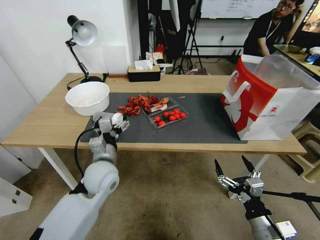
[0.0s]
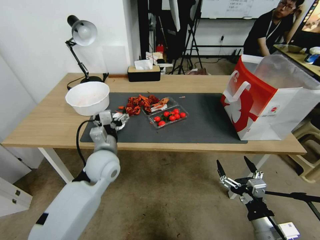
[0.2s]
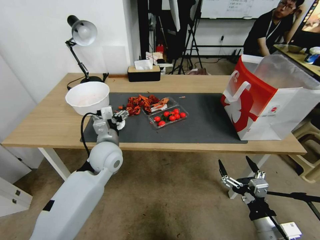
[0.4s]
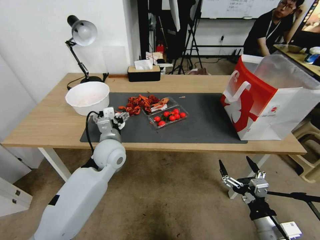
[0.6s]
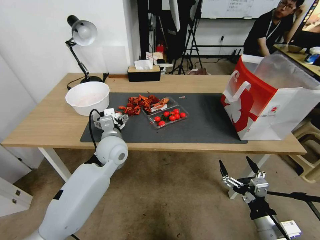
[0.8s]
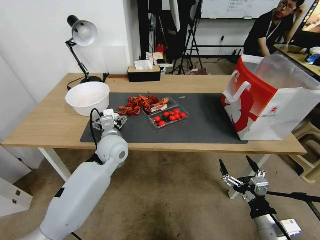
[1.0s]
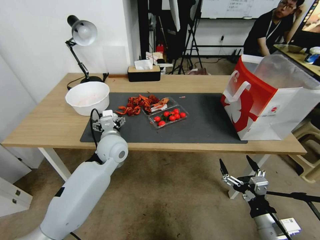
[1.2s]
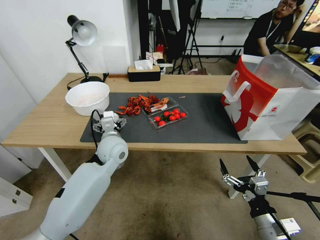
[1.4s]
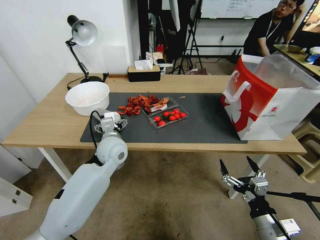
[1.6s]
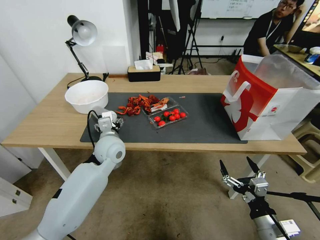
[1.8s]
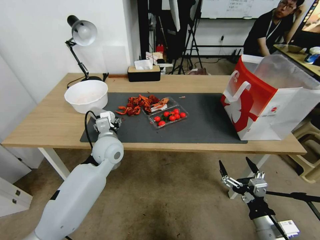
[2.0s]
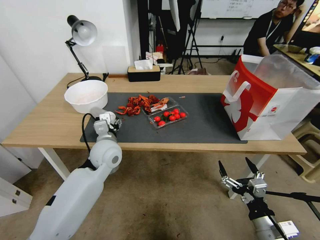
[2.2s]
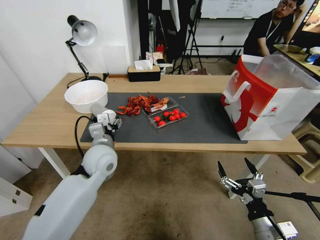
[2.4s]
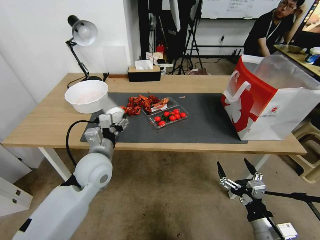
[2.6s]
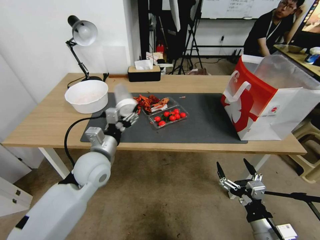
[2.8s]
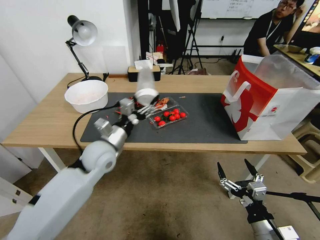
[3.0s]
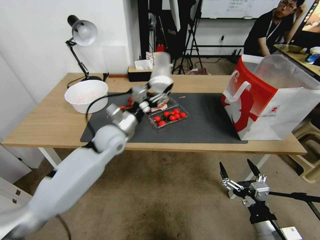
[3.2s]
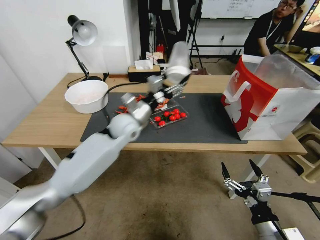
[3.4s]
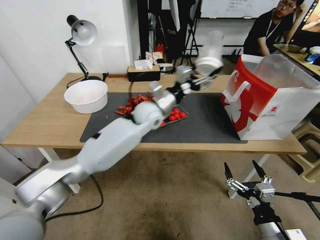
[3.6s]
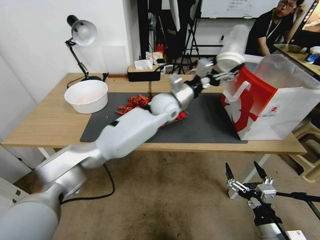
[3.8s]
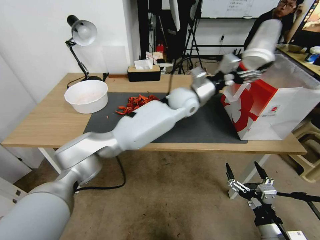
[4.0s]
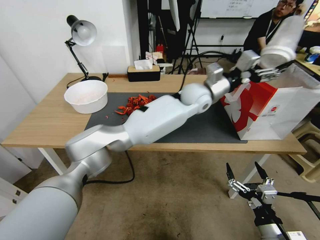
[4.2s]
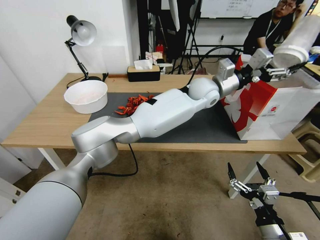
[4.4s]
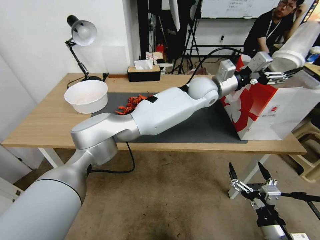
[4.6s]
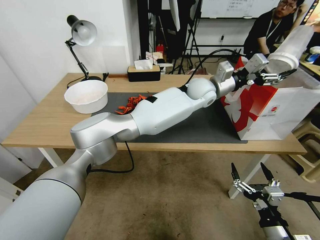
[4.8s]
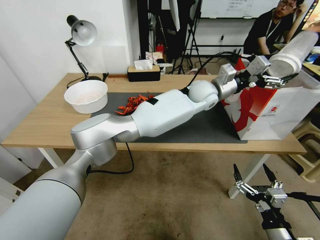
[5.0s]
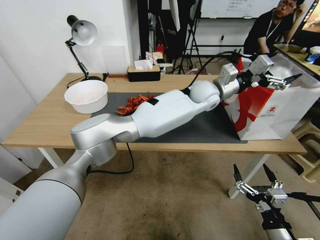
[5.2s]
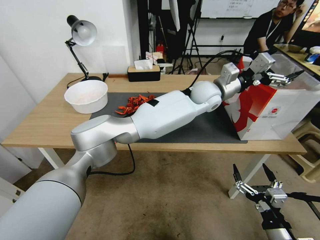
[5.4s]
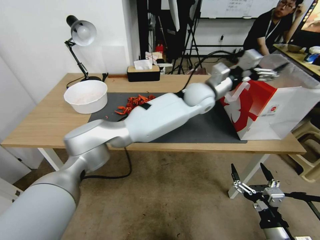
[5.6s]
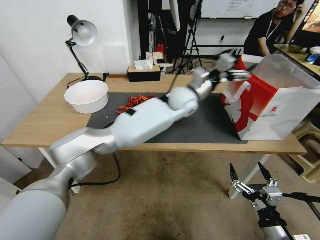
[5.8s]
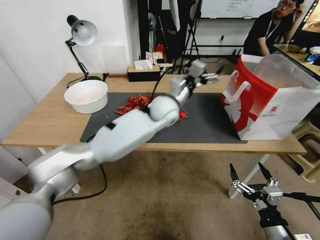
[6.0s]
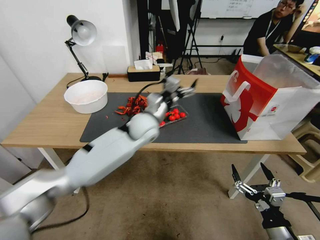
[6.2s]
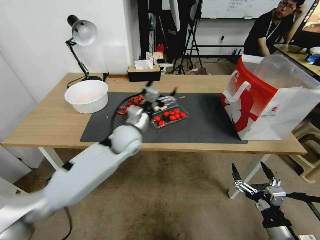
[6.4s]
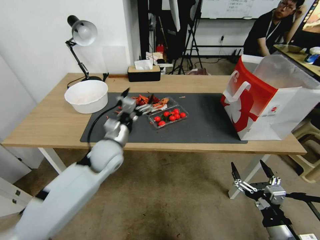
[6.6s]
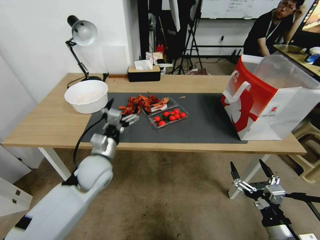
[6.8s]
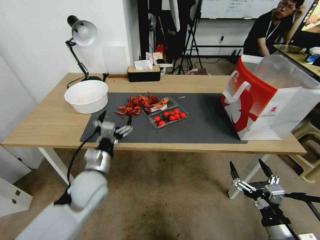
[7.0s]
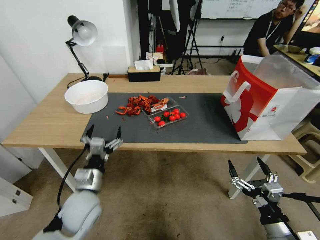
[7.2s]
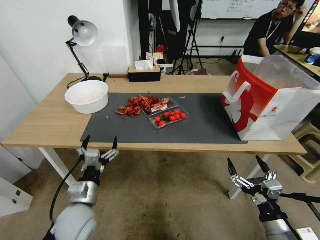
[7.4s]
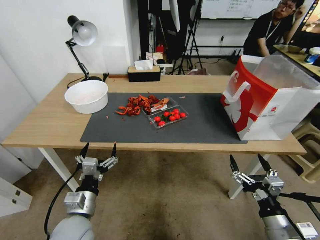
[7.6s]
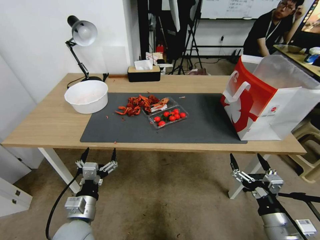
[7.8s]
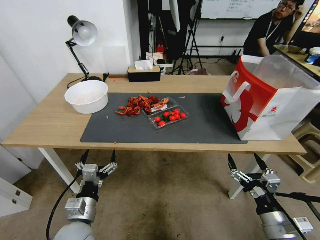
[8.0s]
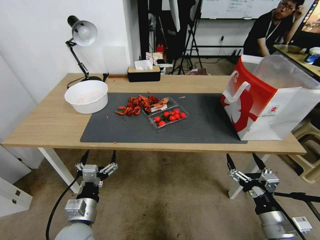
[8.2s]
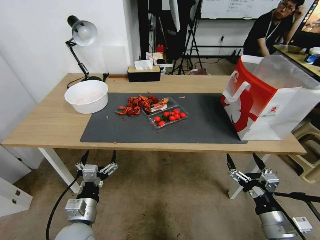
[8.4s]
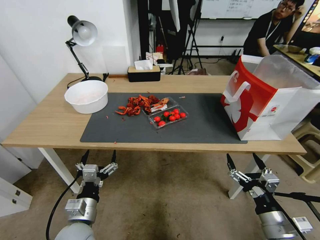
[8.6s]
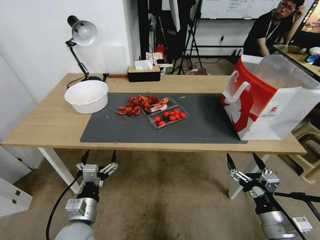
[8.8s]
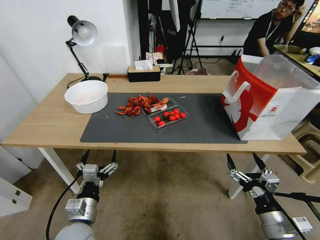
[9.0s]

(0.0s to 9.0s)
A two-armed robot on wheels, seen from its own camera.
0.0s - 1.6s: The left gripper shifts about 10 cm forward.
1.6s - 3.0s: The left gripper closes up.
3.0s - 4.4s: The left gripper heads to the right and forward, covering approximately 35 cm.
4.4s - 6.0s: The left gripper heads to the left and downward, covering approximately 15 cm, and opens up.
6.0s - 7.6s: The left gripper heads backward, to the left and downward, covering roughly 40 cm.
7.6s - 9.0s: The left gripper shifts roughly 5 cm backward.

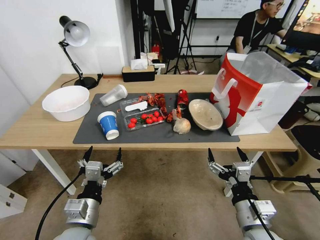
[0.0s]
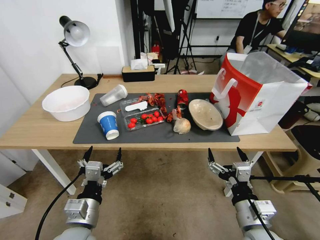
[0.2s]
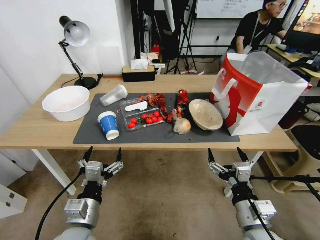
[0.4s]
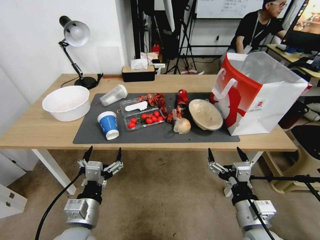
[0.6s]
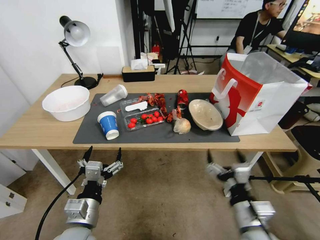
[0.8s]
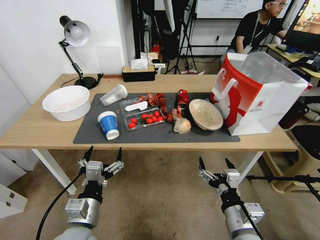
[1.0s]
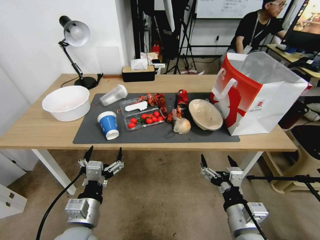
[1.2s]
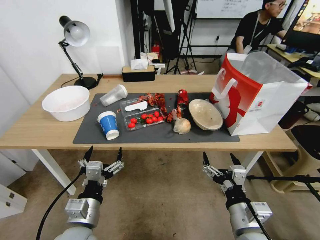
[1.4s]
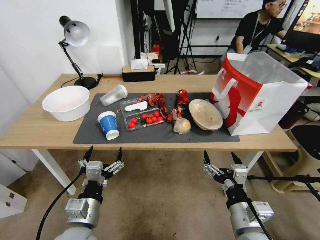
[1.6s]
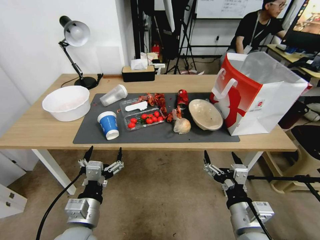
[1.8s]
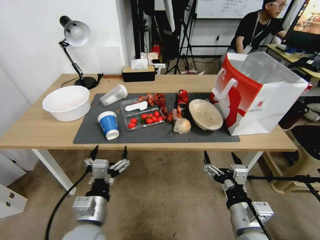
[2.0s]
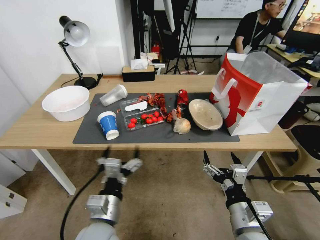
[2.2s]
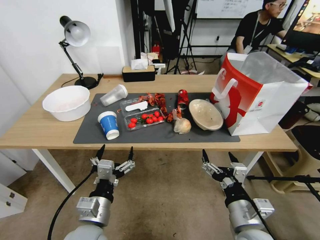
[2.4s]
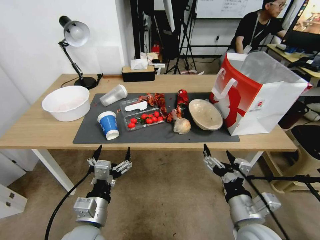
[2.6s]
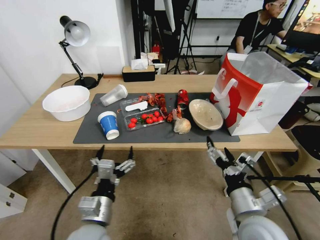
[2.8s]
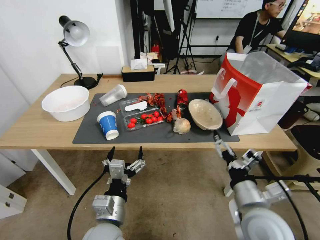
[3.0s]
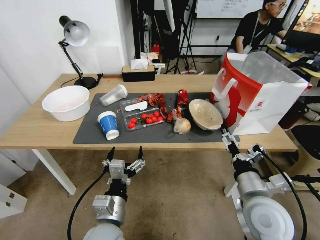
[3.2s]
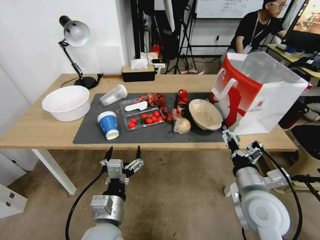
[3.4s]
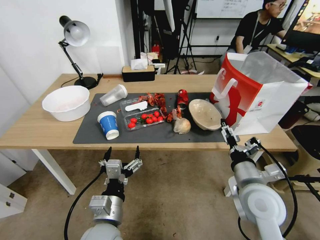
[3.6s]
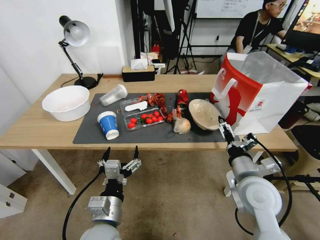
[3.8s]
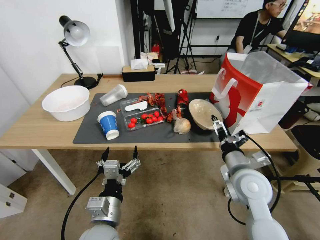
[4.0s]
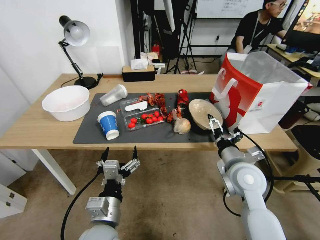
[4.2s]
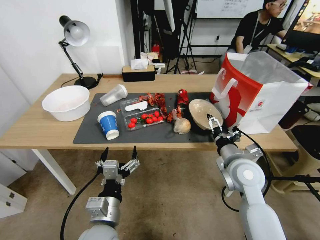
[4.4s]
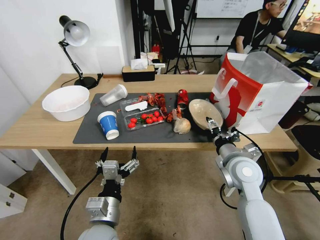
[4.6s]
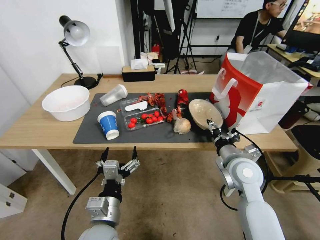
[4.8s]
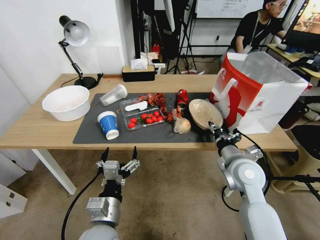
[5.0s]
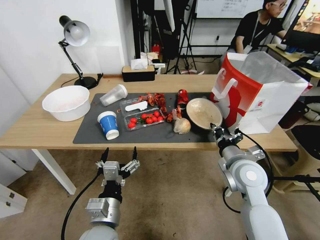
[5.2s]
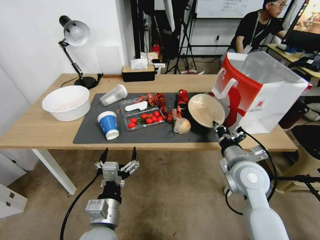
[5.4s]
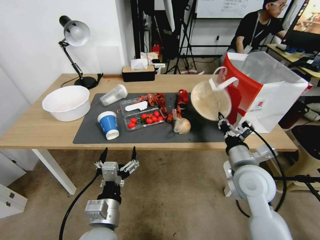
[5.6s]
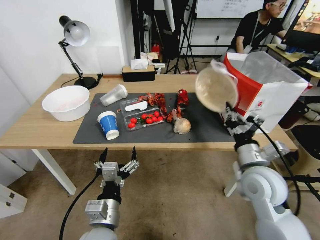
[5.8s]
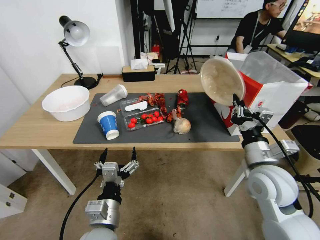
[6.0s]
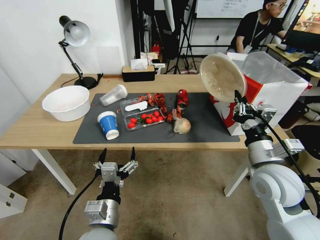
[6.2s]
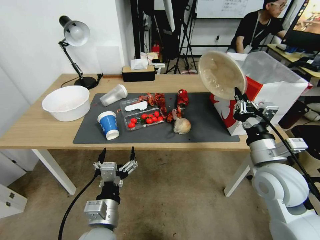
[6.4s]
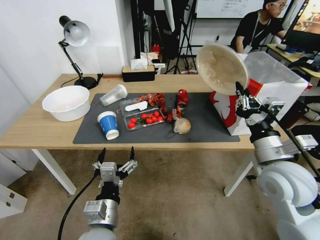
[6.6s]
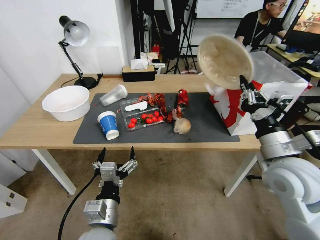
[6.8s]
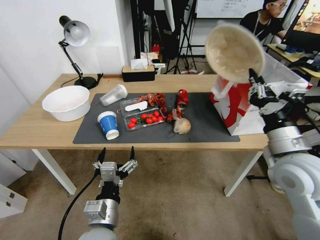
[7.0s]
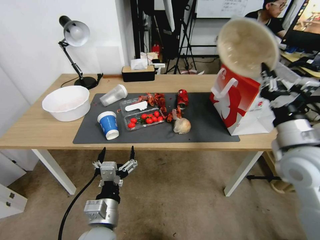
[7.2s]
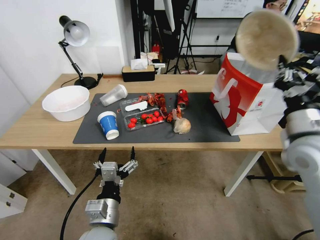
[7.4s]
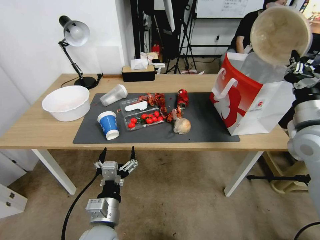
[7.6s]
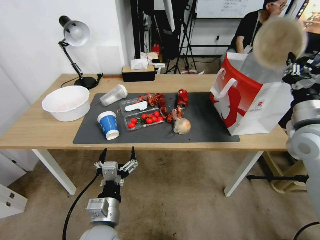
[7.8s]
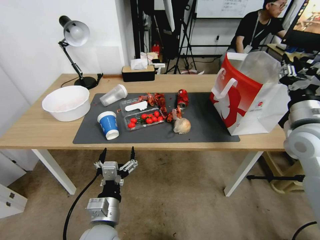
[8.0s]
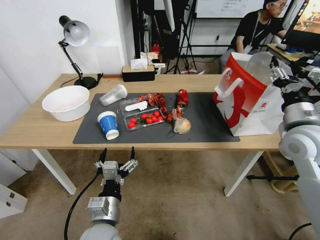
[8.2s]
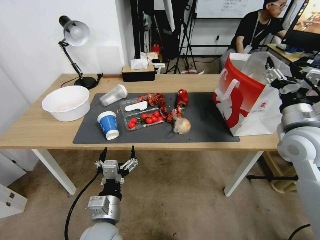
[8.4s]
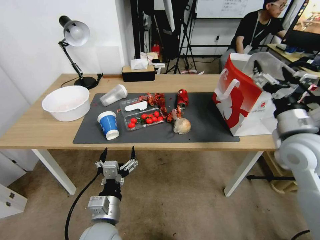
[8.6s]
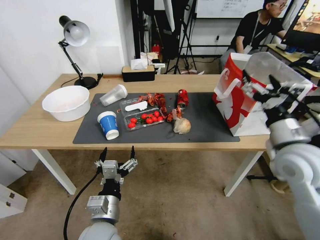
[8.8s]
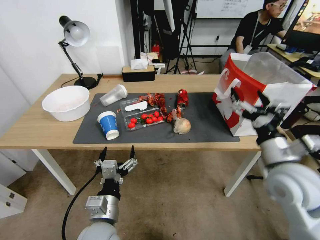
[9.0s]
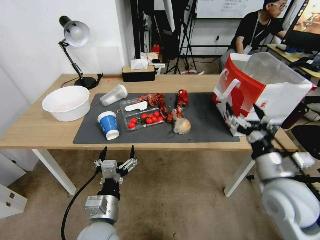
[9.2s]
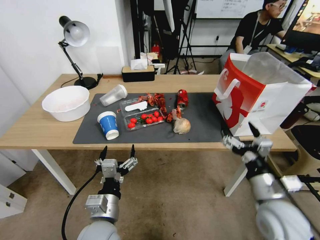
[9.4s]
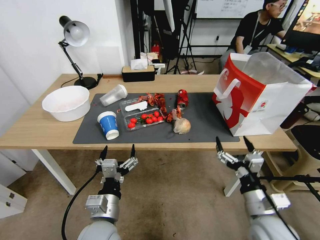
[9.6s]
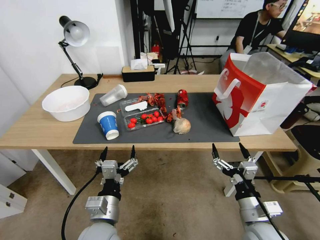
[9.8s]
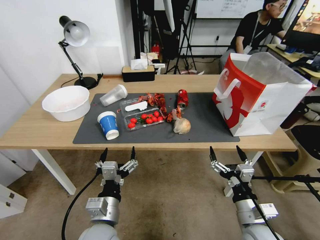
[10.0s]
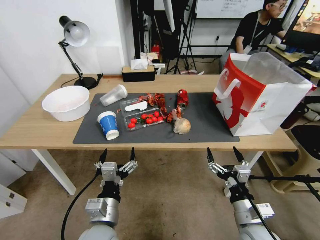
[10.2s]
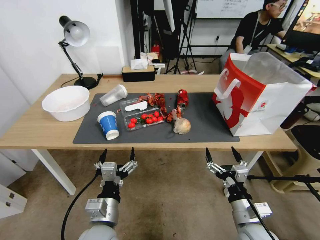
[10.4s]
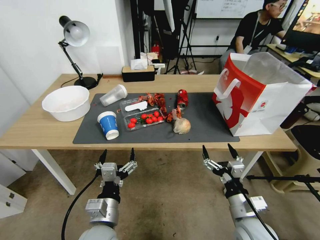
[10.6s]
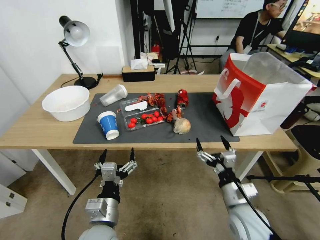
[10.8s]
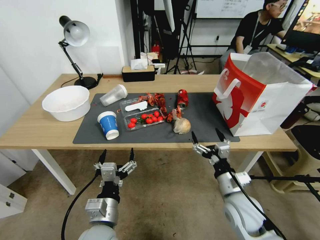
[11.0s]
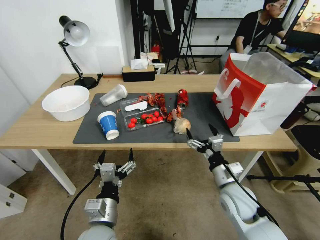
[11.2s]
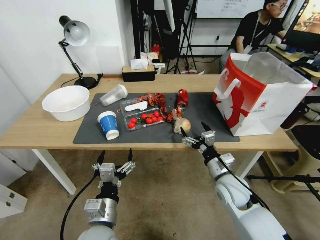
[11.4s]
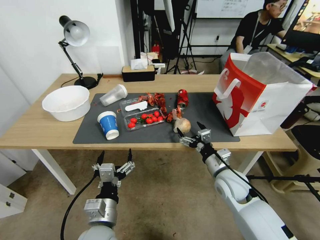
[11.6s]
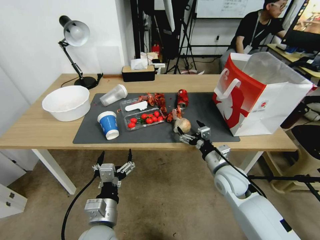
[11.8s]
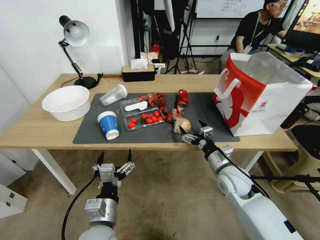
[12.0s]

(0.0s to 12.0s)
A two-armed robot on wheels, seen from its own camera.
1.6s - 3.0s: The grippers move only a little.
3.0s - 4.4s: The right gripper heads forward, covering some 15 cm.
4.4s - 6.0s: The right gripper closes up.
6.0s - 7.6s: The right gripper moves upward and to the right, approximately 15 cm.
7.6s - 9.0s: The right gripper moves downward, to the left and backward, some 10 cm, and opens.
9.0s - 10.4s: The right gripper heads downward and backward, covering approximately 20 cm.
10.4s - 12.0s: The right gripper travels forward by roughly 15 cm.

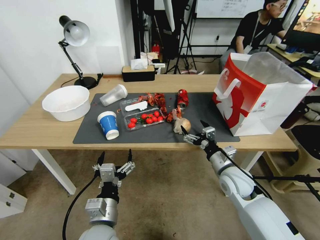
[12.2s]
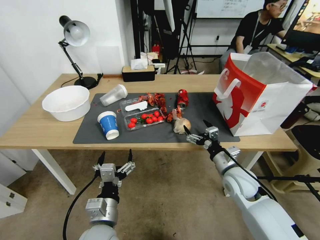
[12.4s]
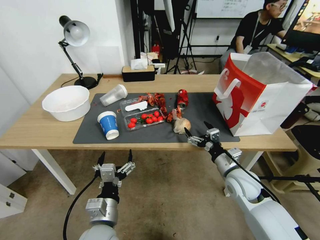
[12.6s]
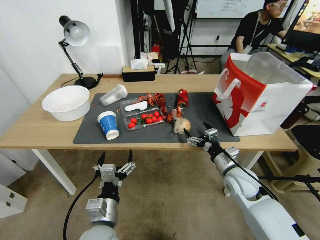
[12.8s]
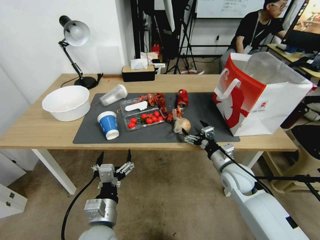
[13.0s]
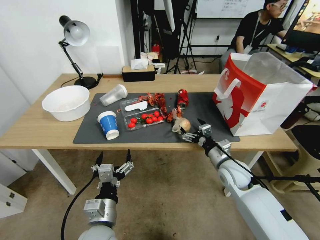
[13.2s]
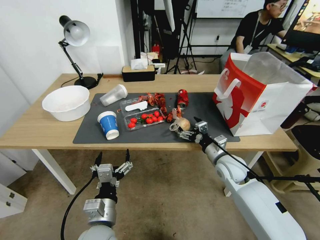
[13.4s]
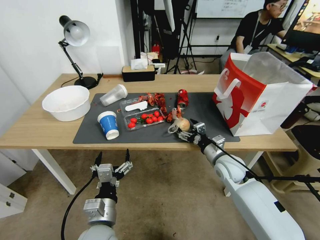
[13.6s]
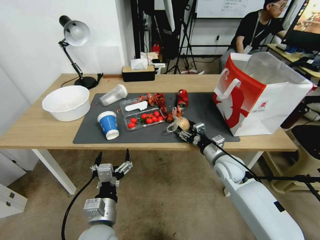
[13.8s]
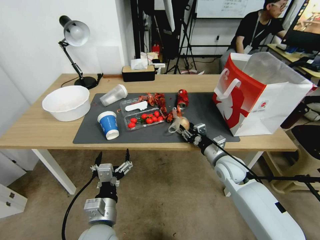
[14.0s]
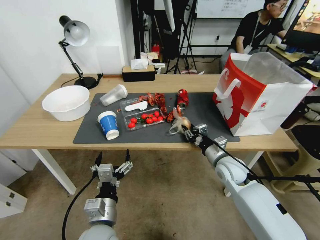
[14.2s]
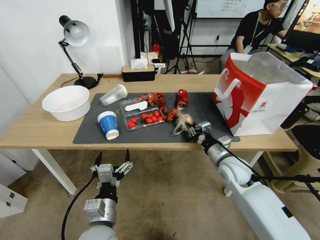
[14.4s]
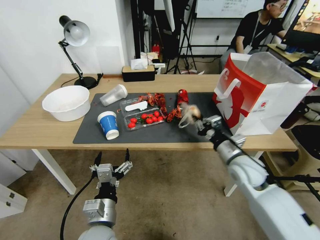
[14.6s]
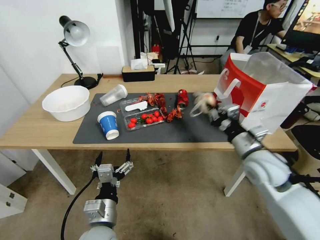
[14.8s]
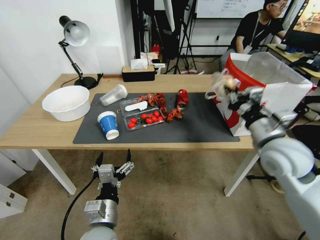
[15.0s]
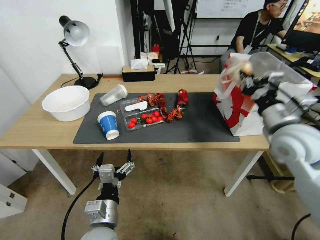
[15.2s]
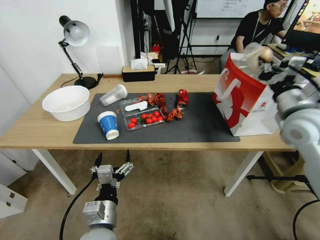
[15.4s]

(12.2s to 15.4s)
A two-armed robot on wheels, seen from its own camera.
12.2s - 13.8s: The right gripper closes.
13.8s - 15.4s: The right gripper goes about 25 cm upward and to the right, and closes.
